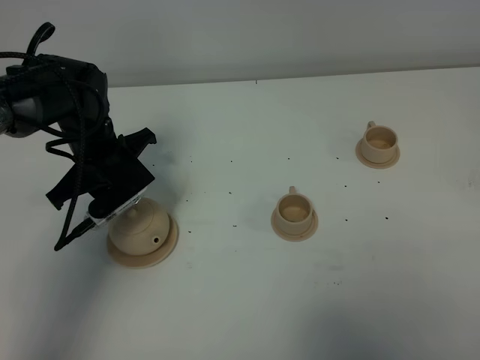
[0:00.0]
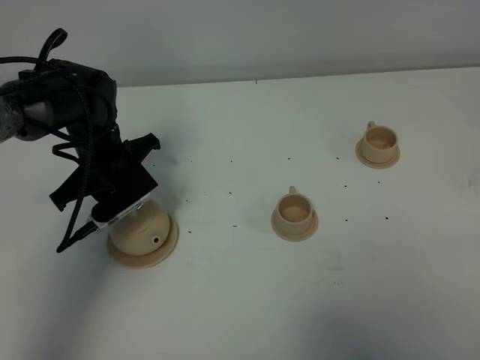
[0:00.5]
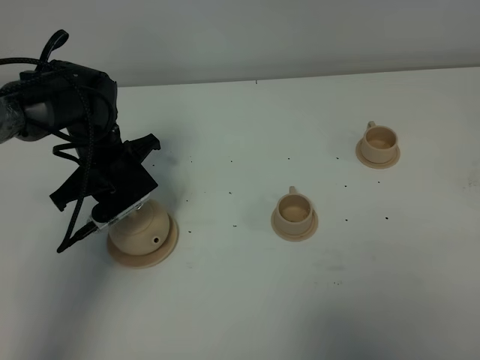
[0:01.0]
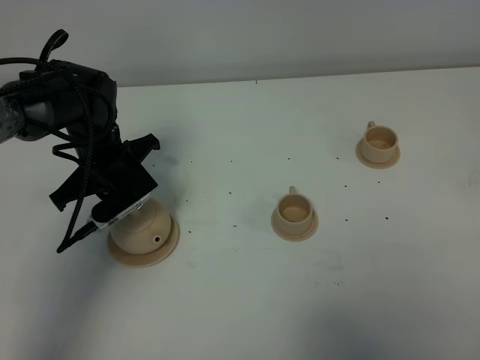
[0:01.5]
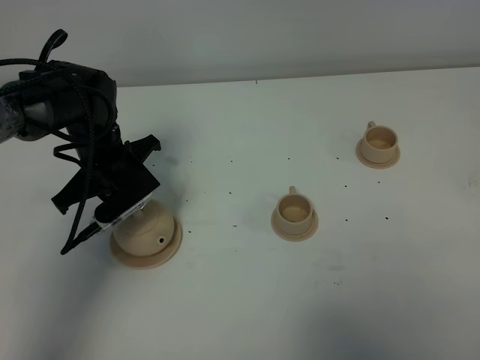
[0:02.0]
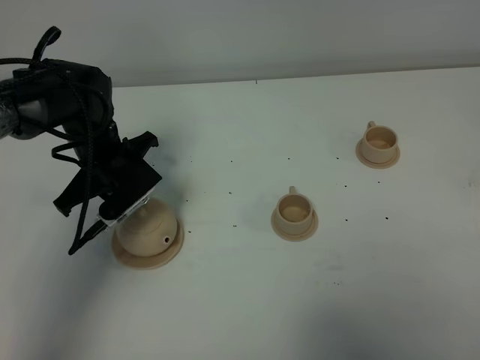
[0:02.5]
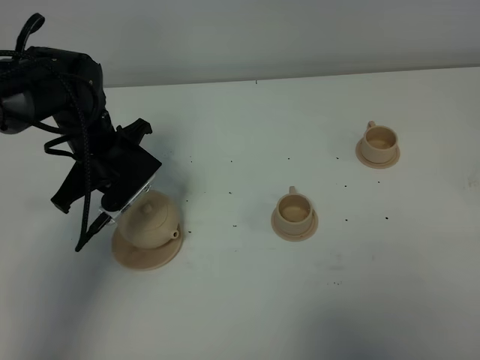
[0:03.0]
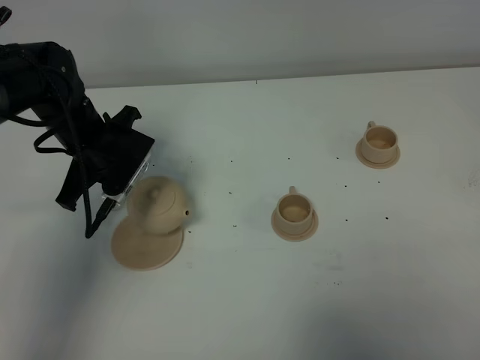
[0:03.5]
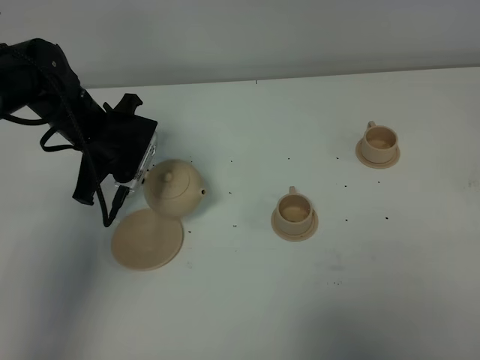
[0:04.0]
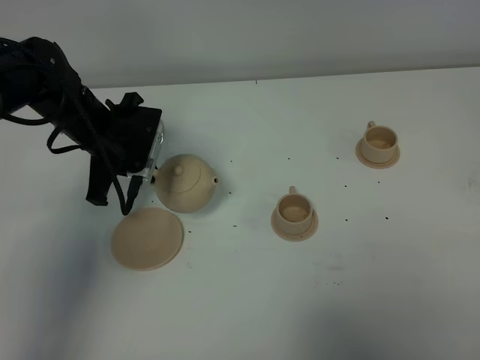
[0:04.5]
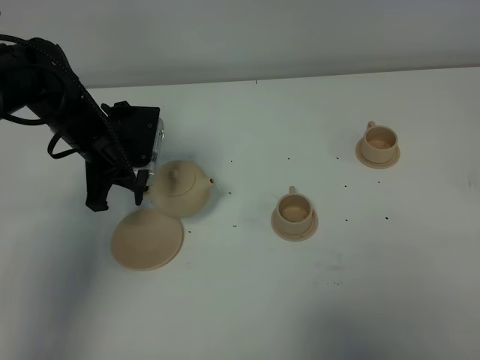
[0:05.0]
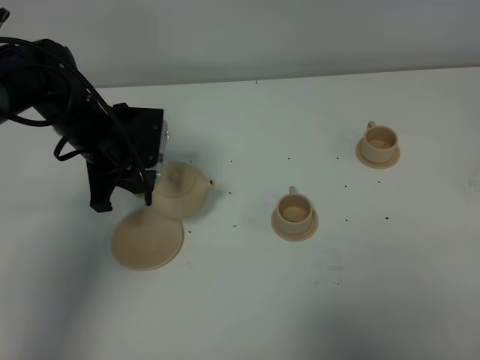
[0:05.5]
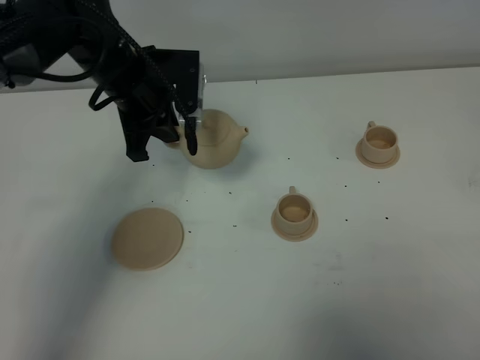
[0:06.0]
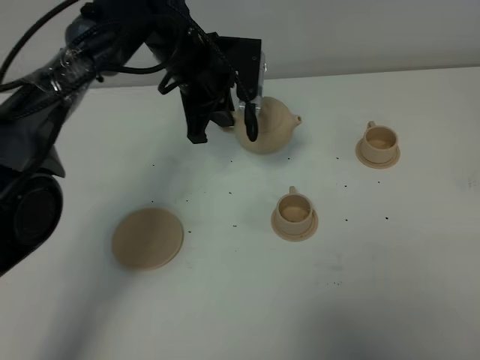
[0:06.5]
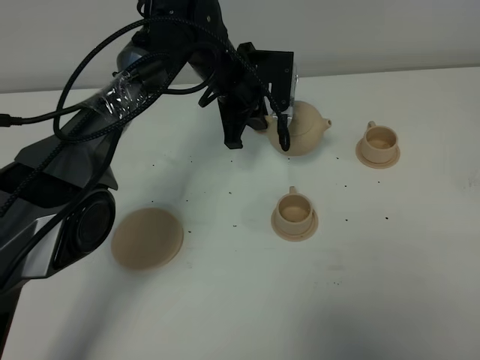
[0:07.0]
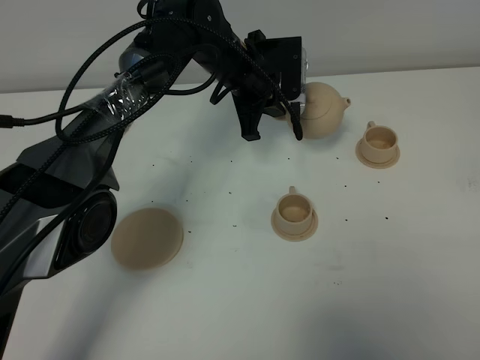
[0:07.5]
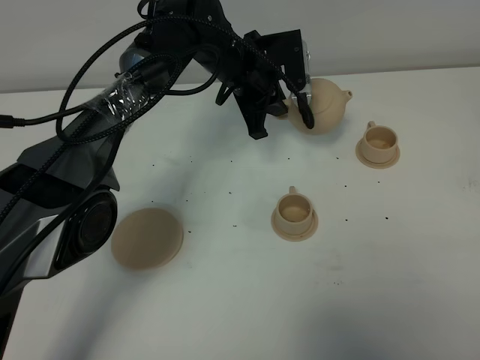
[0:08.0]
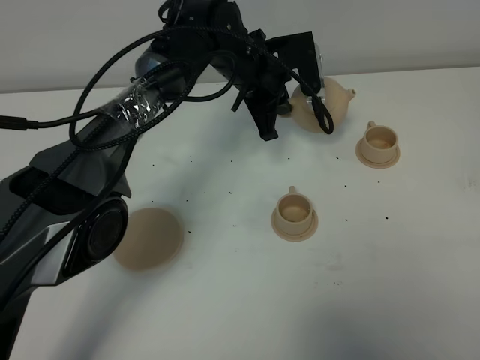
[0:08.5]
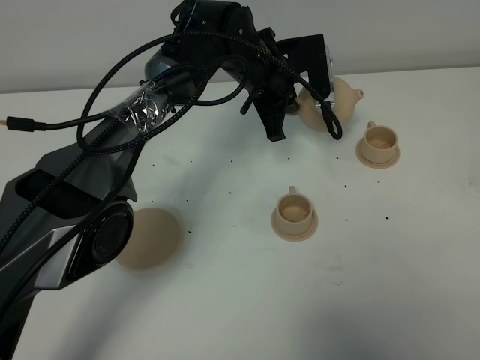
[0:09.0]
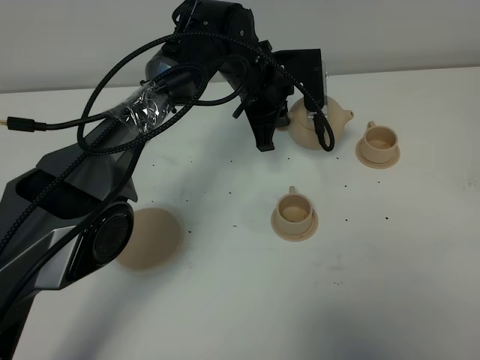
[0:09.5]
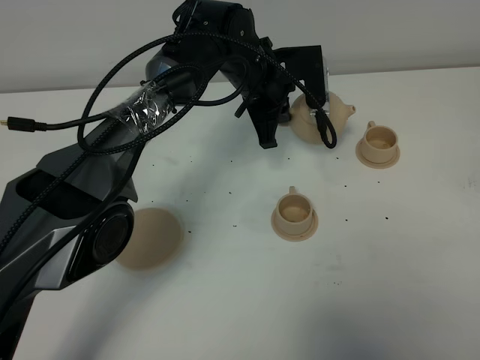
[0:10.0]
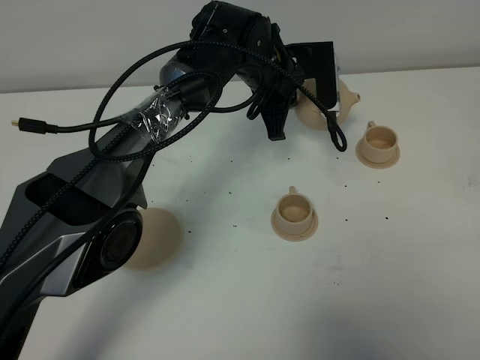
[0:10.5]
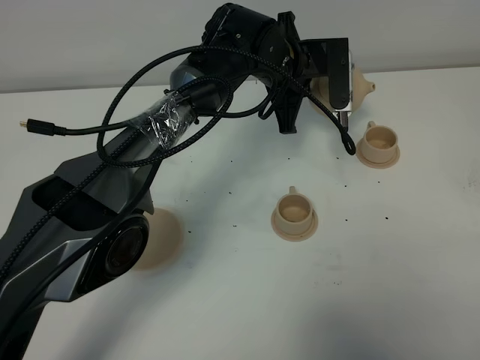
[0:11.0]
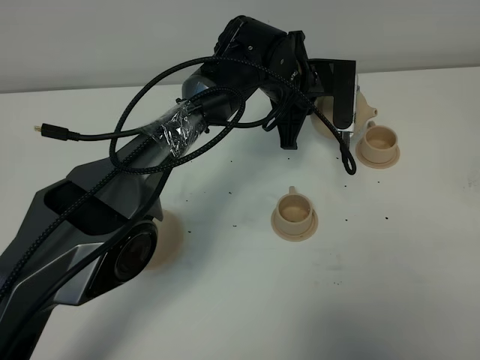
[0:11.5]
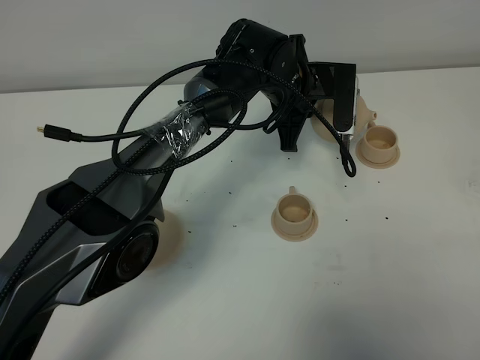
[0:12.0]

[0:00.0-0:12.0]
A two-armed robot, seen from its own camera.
Task of the whole recording: grasp the brown teapot and pour the tea into the two brown teacups one by one, put the brown teapot back in its original place.
Step, 0:00.0 to 0:03.0: Pick up the teapot with the left gripper.
0:00.0 to 0:02.0: The two grippers keep their place.
0:04.0 to 0:06.0: The left gripper goes some 10 cm to the right and upward.
0:06.0 to 0:08.0: The left gripper shifts approximately 15 cm to the right and forward.
0:08.0 to 0:10.0: There are only small adjustments of the grippers.

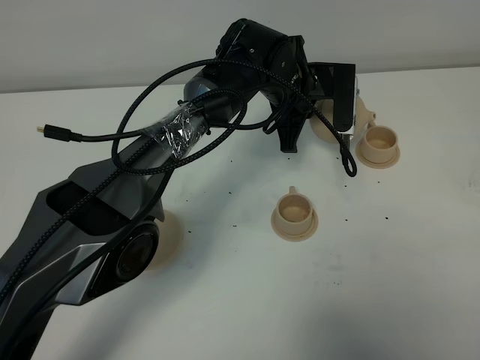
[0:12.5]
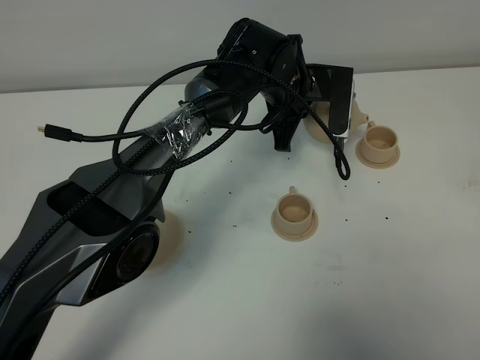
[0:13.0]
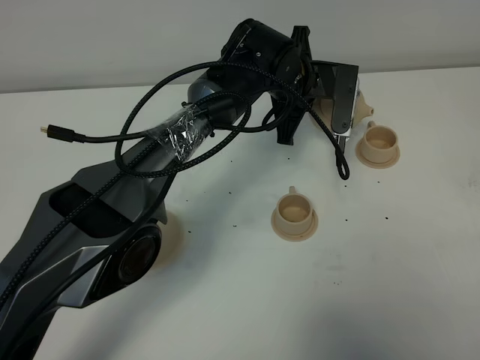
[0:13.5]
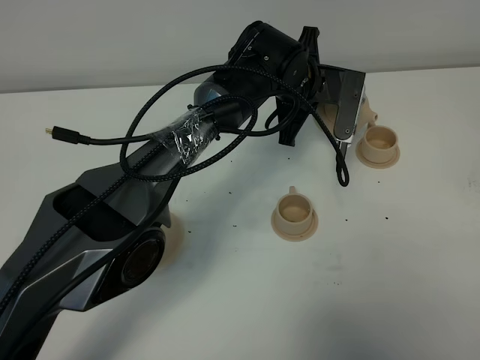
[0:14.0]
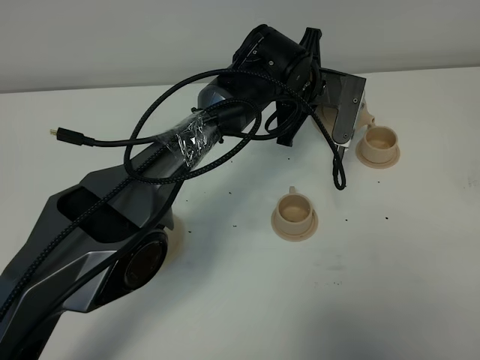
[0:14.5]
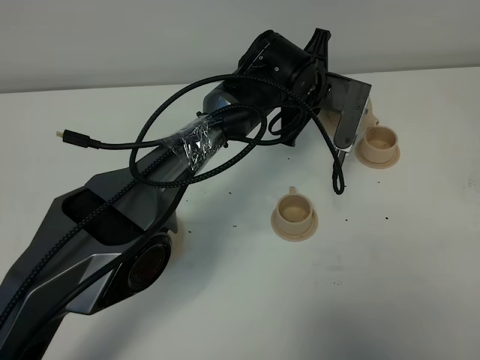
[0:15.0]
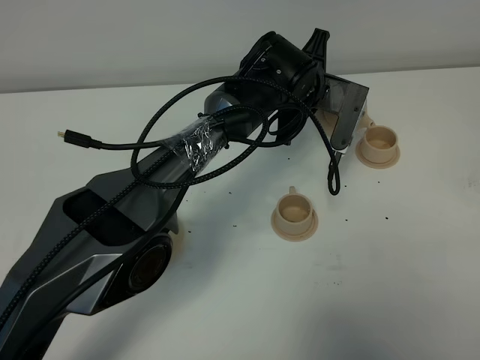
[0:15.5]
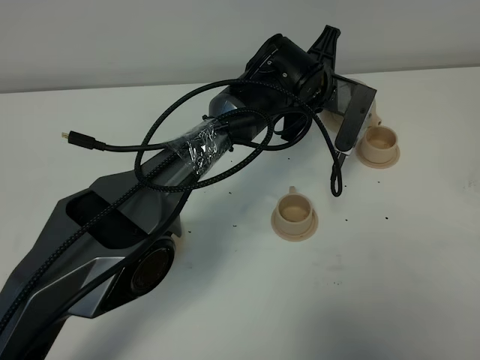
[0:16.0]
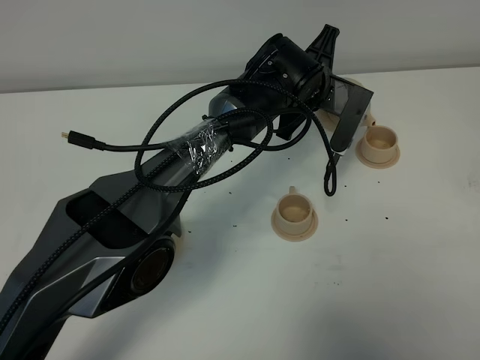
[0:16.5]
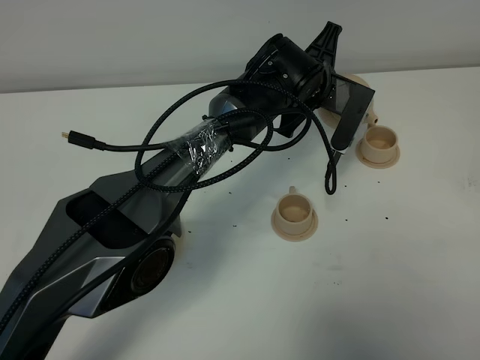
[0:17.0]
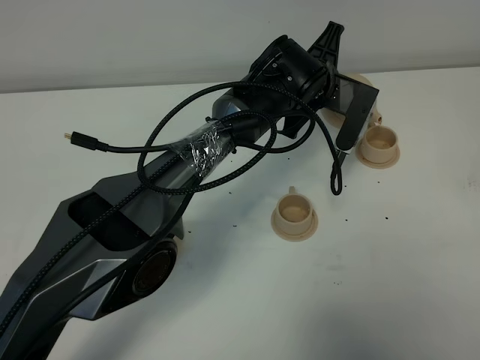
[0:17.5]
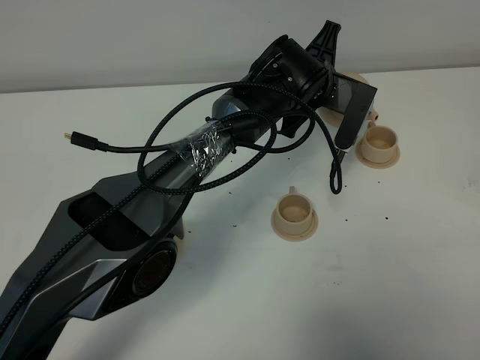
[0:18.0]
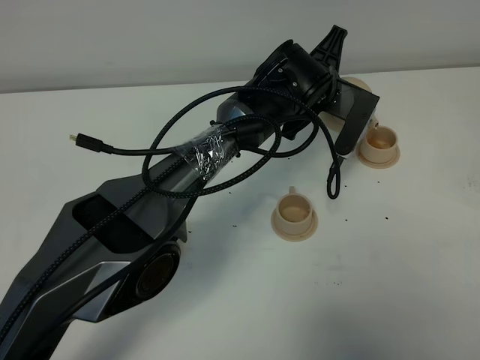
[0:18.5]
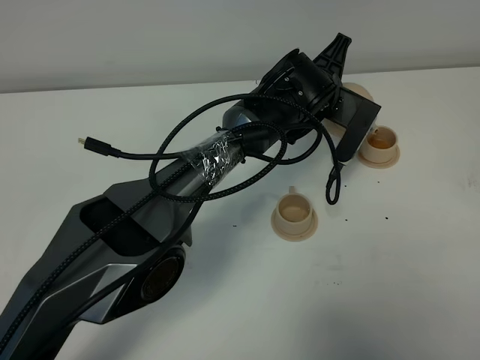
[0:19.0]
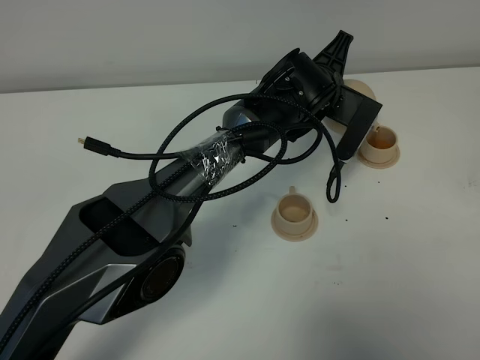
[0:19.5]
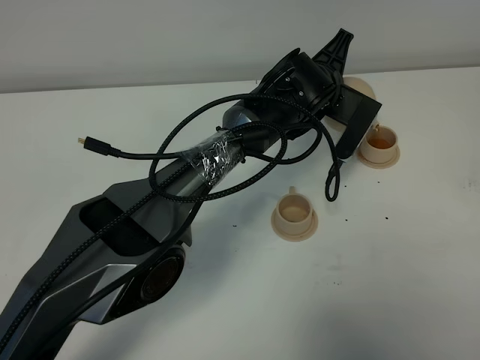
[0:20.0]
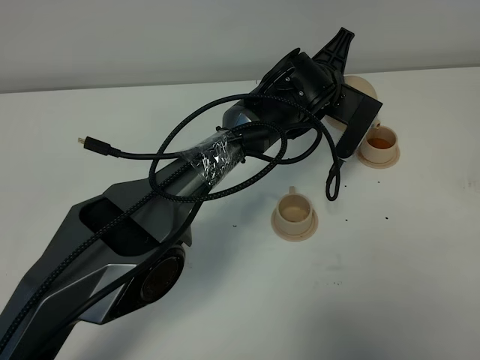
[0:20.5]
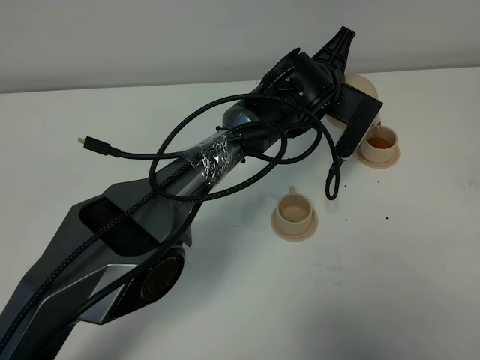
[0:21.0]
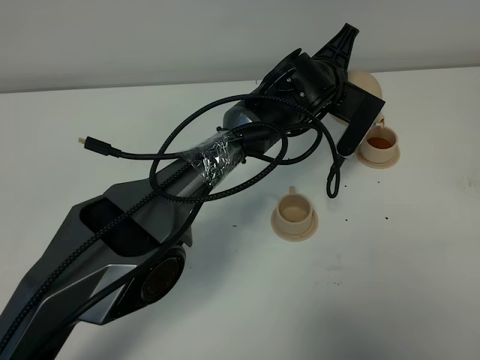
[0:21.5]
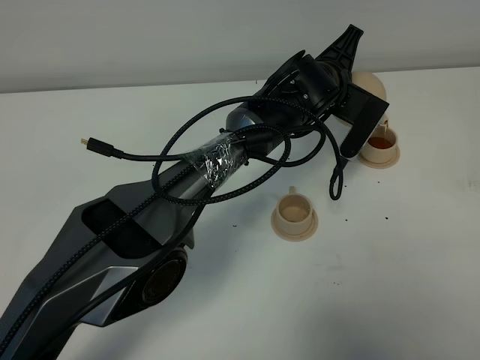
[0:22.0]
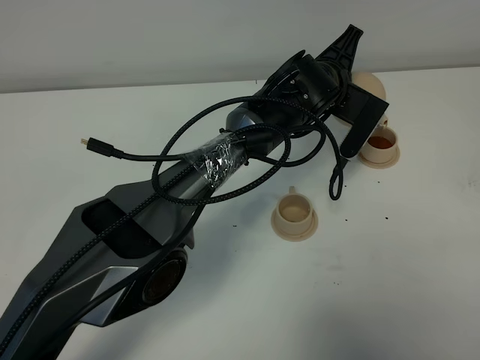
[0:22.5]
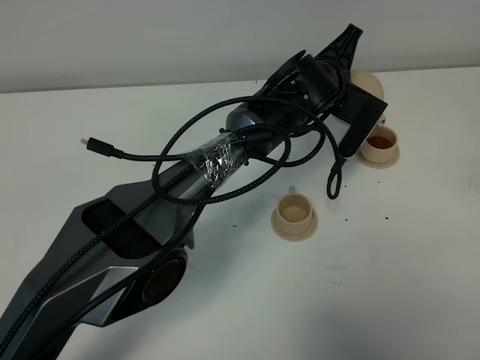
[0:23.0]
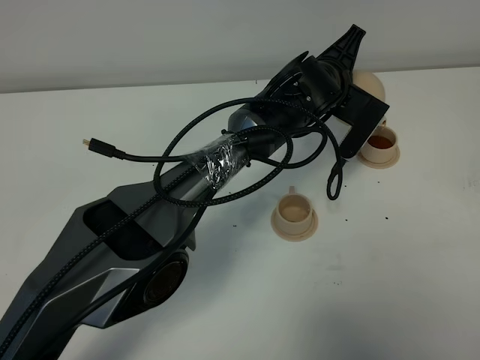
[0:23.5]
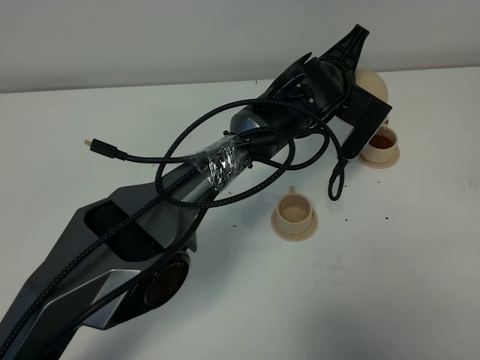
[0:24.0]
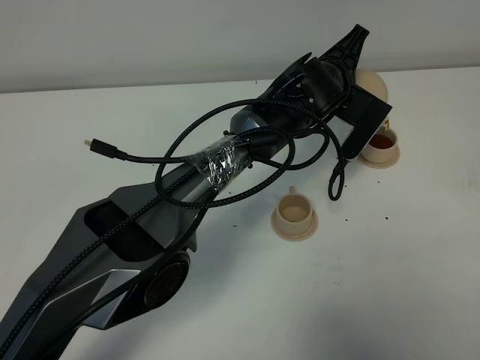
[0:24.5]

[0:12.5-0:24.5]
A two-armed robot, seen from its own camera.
Task of the whole recording: grasp the brown teapot and pour the tea into the two brown teacups one by one, put the brown teapot back in its original place.
0:12.5 to 0:14.5: The grippers move only a little.
0:14.5 to 0:16.5: The grippers move only a little.
0:16.5 to 0:18.5: Both grippers stay put.
0:18.5 to 0:20.5: Both grippers stay about where they are.
0:20.5 to 0:22.5: Both grippers stay about where they are.
0:22.5 to 0:24.5: Both grippers stay about where they are.

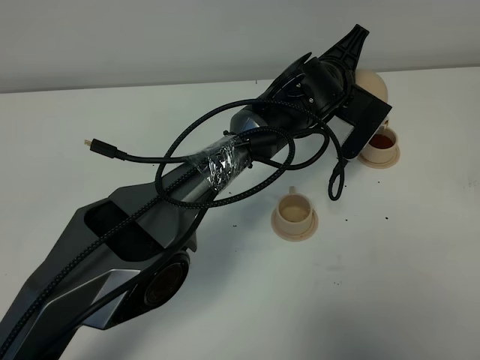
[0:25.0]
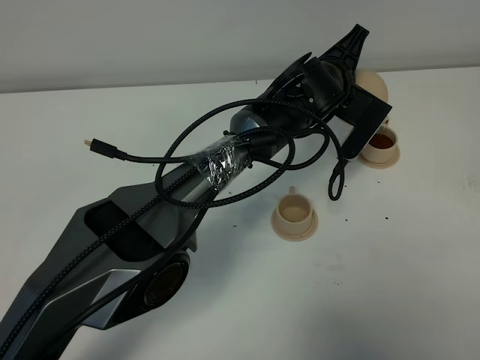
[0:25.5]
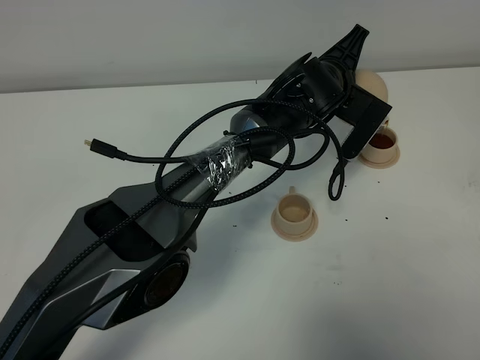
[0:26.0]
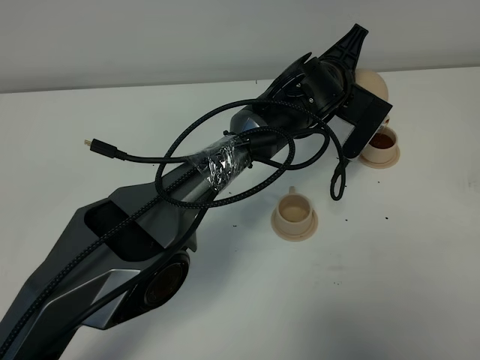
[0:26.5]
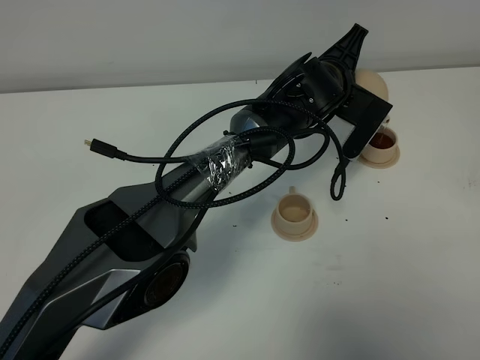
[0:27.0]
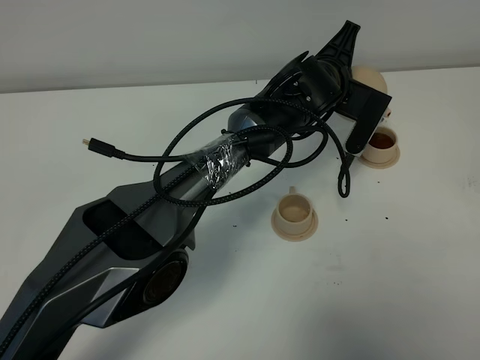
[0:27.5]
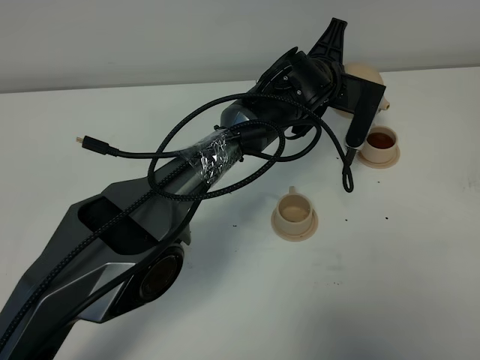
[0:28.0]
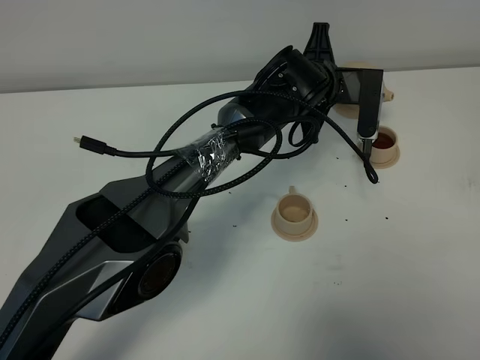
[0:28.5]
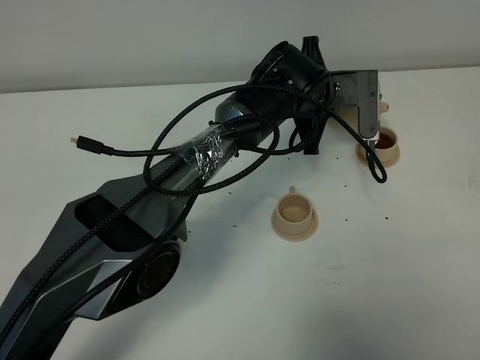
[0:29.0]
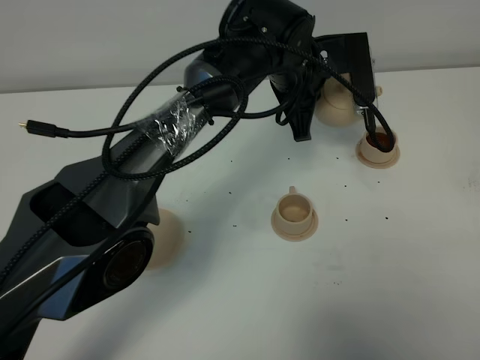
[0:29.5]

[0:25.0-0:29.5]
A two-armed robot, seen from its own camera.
Task of the whole recording: grasp the brown teapot and pour the tea into the two brown teacups one by one, put the brown teapot back in its original place.
0:25.0 to 0:27.0: Both grippers stay put.
0:27.0 to 0:29.5: The left gripper shifts about 10 cm upward and to the left.
